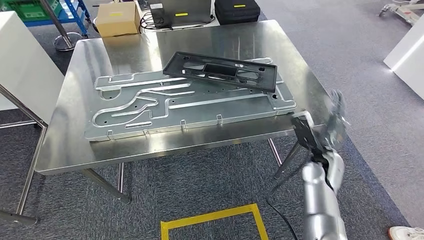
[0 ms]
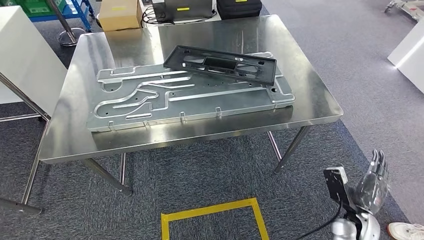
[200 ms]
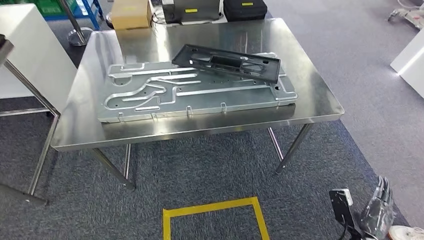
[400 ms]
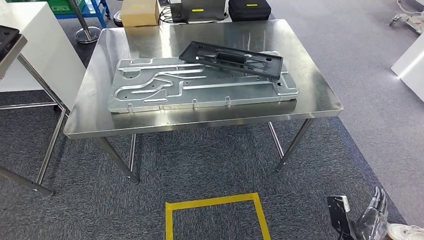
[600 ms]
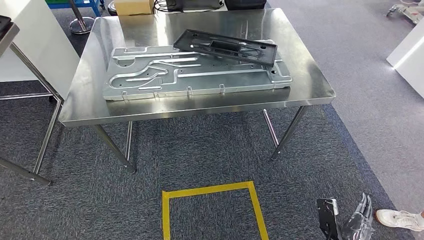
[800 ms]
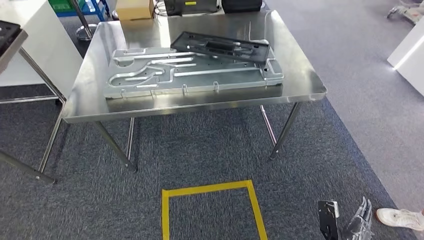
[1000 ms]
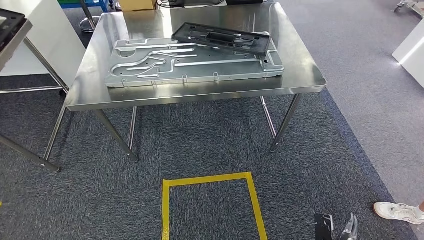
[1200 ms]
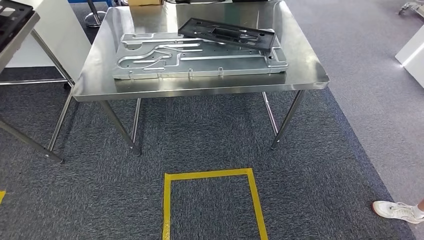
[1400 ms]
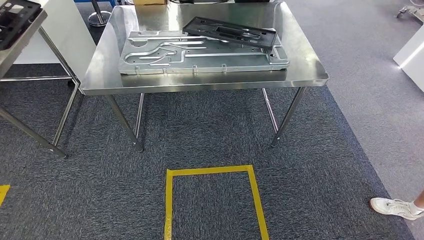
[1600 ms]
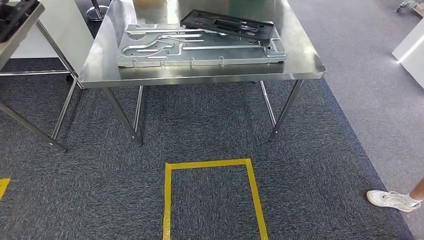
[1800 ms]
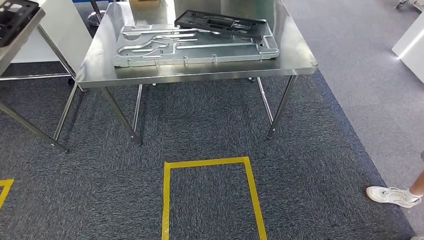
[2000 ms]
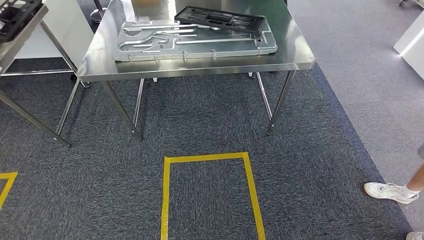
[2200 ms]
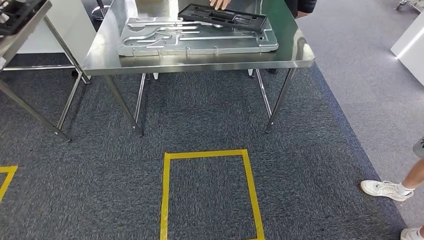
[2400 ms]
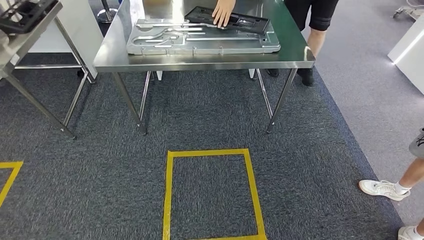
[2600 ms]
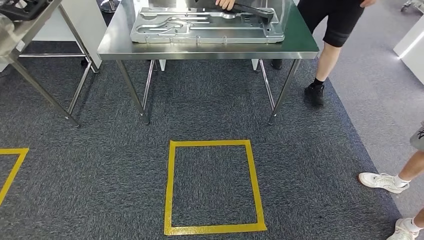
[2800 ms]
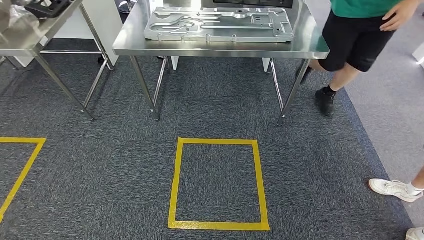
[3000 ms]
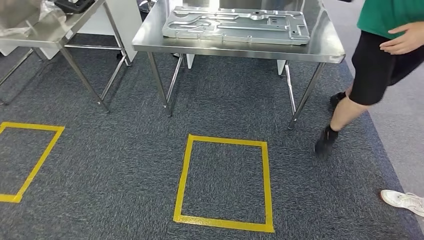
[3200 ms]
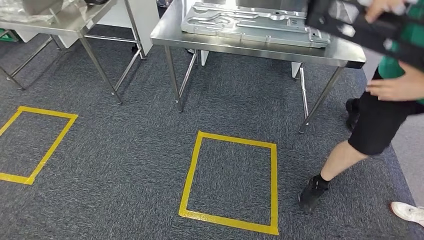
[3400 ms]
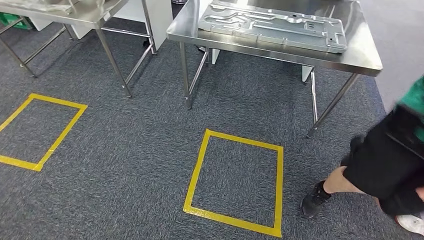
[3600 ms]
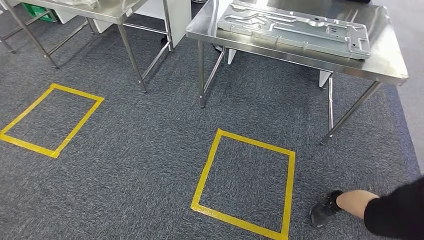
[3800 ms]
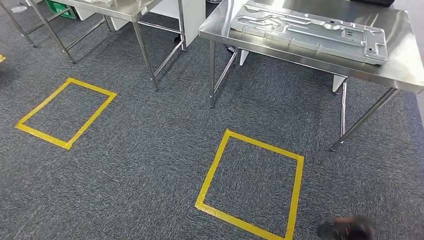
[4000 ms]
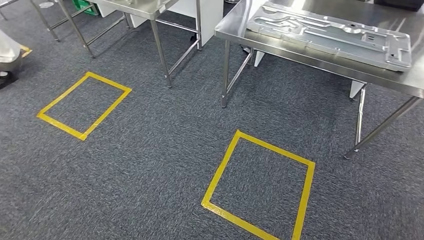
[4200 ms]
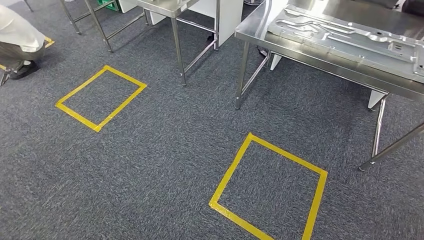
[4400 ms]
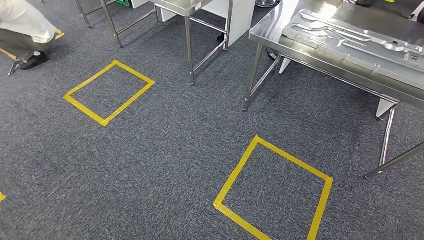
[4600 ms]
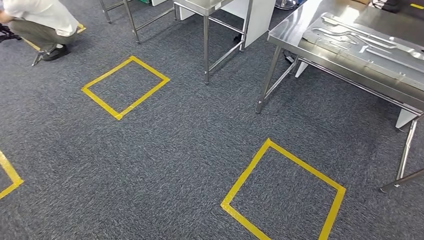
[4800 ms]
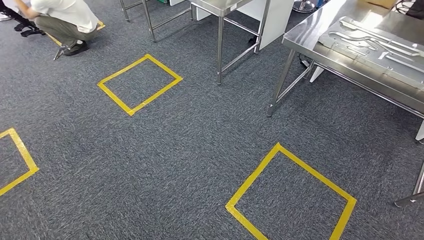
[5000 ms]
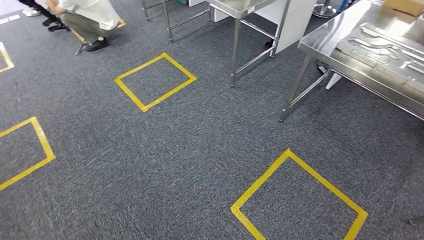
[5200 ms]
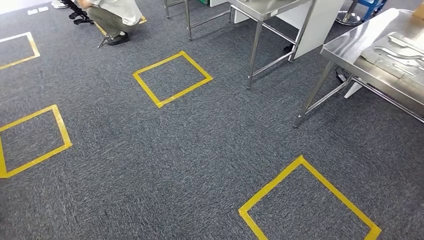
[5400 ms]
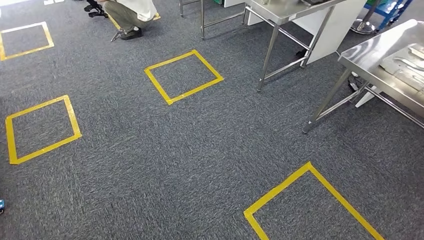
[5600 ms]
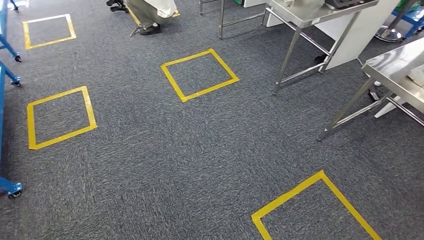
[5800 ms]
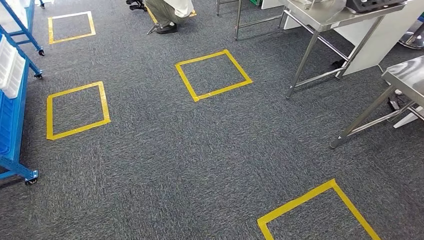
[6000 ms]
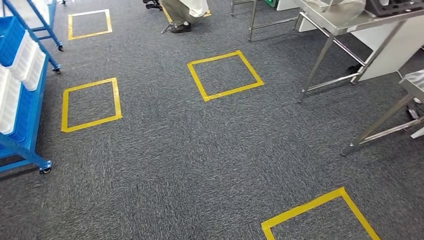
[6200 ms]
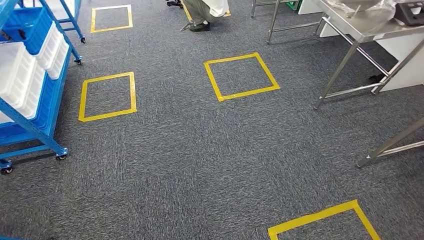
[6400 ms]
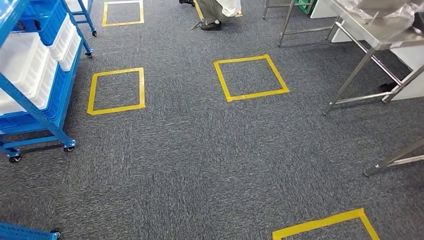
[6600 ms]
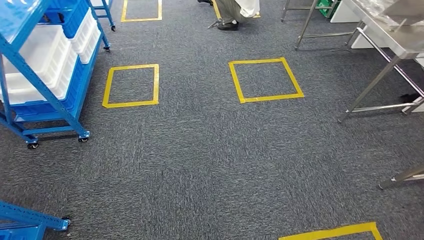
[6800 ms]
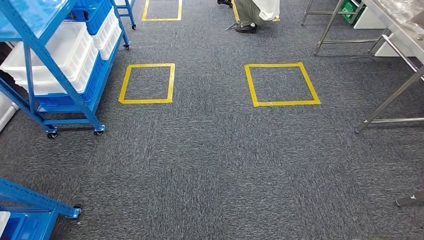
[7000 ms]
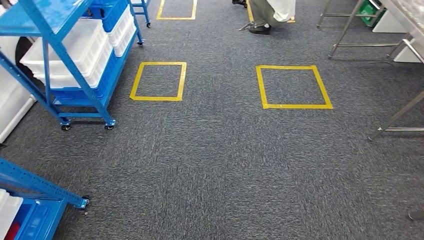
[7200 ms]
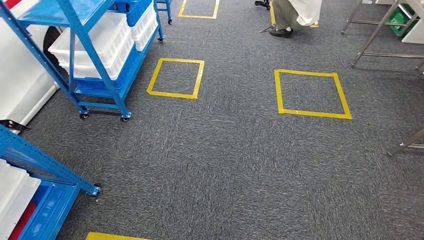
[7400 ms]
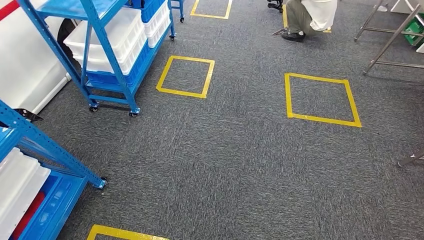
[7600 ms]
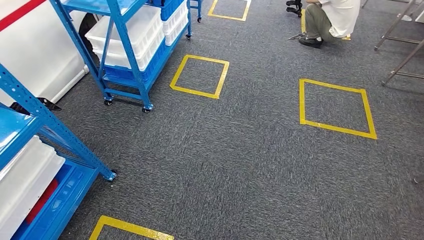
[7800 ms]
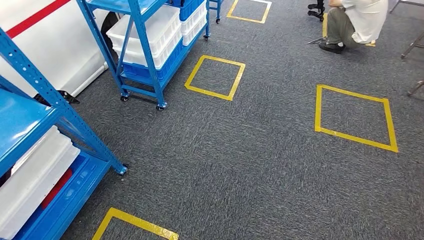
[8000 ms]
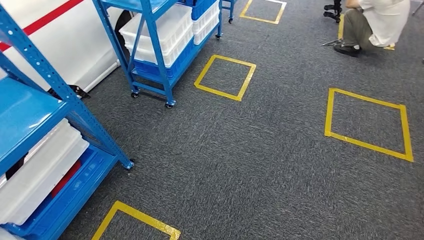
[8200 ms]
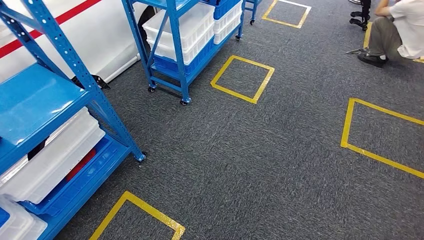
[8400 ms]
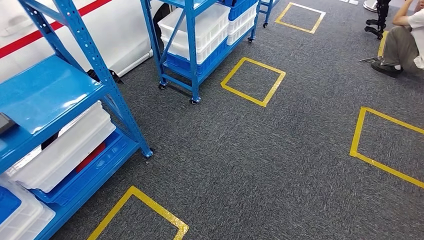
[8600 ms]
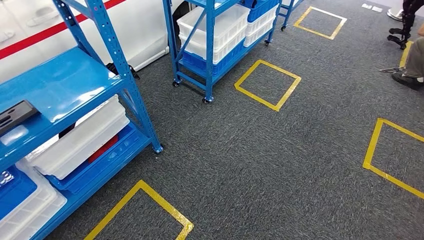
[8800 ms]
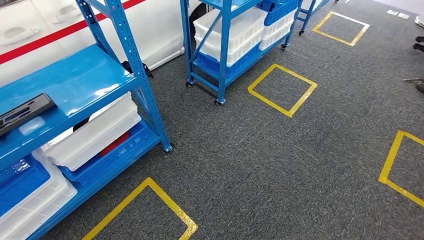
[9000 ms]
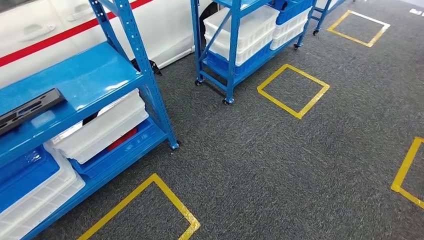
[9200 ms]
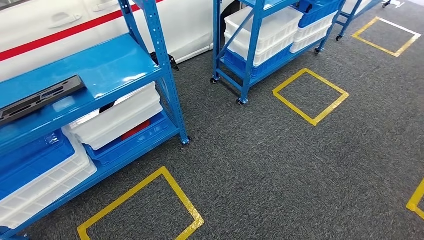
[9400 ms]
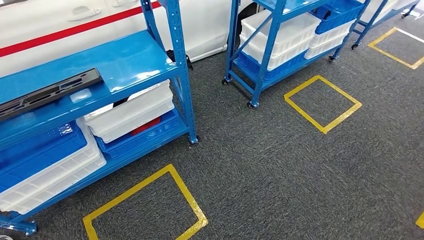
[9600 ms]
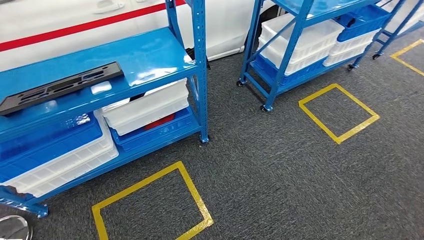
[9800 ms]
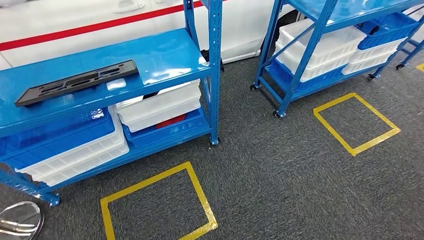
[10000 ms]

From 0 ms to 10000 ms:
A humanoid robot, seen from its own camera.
Step, from 2600 ms to 10000 ms: Move to the initial position of the shelf.
